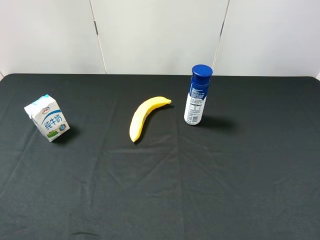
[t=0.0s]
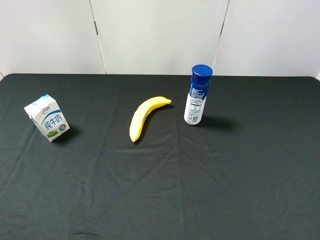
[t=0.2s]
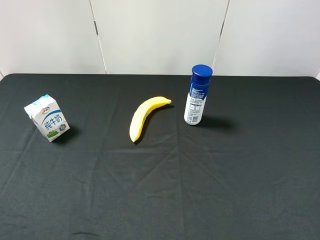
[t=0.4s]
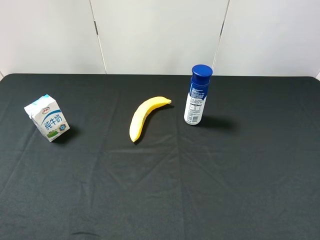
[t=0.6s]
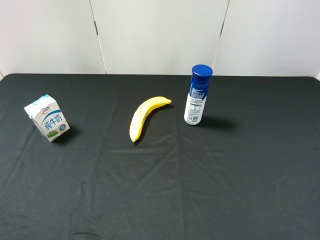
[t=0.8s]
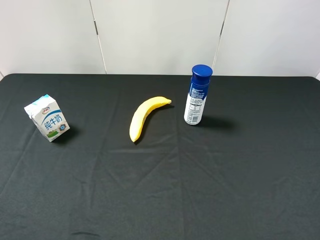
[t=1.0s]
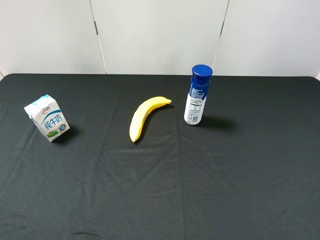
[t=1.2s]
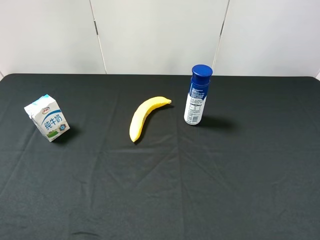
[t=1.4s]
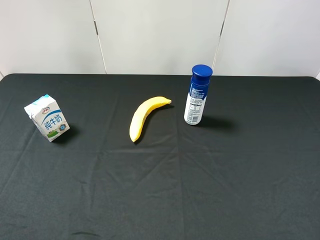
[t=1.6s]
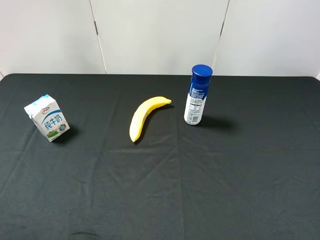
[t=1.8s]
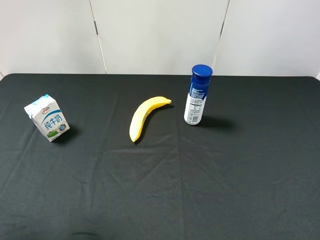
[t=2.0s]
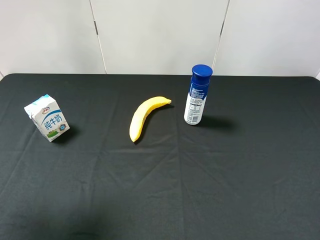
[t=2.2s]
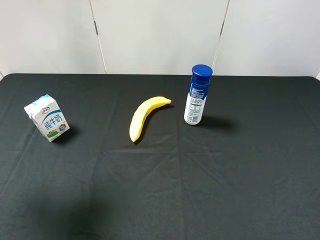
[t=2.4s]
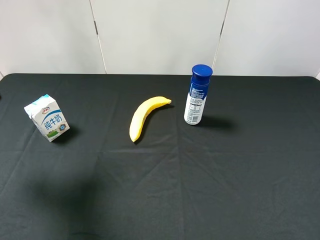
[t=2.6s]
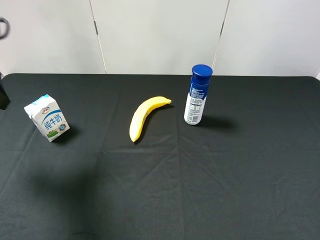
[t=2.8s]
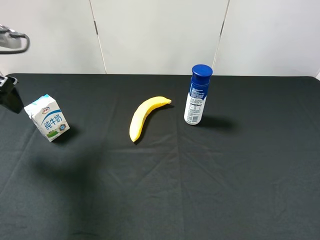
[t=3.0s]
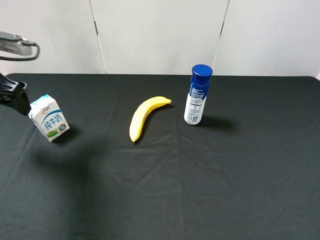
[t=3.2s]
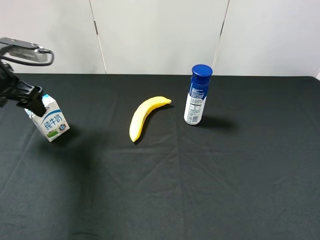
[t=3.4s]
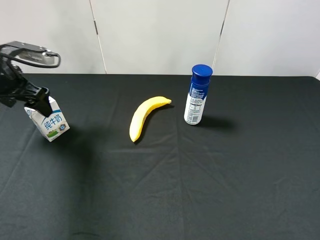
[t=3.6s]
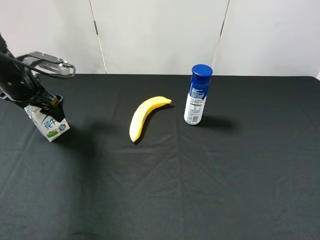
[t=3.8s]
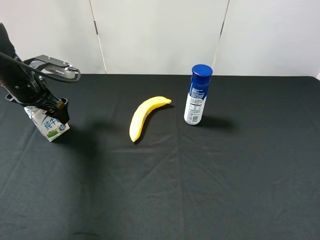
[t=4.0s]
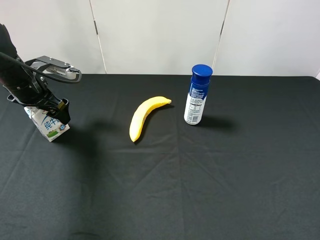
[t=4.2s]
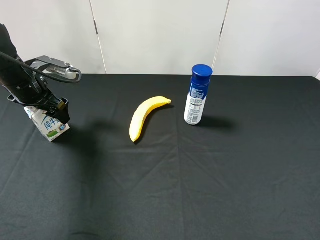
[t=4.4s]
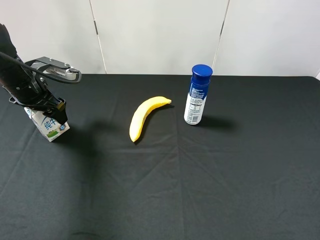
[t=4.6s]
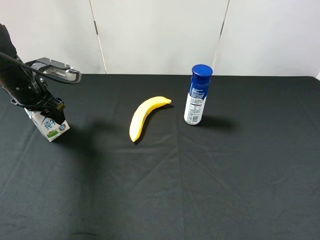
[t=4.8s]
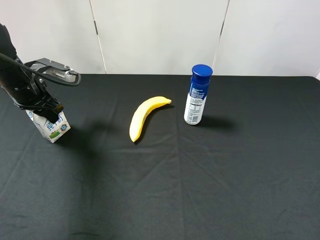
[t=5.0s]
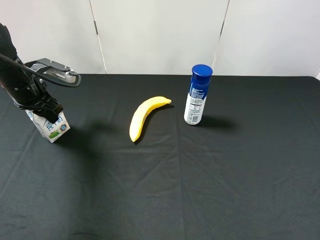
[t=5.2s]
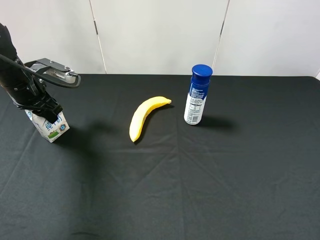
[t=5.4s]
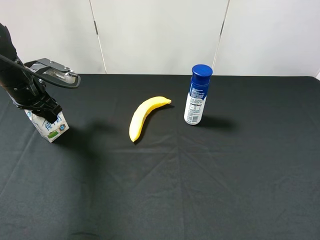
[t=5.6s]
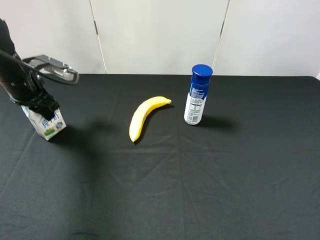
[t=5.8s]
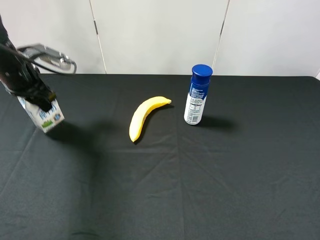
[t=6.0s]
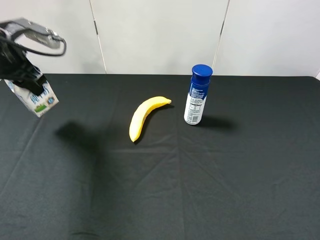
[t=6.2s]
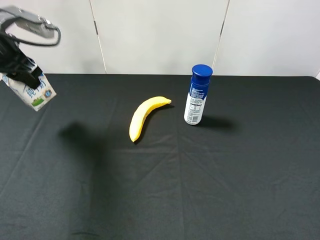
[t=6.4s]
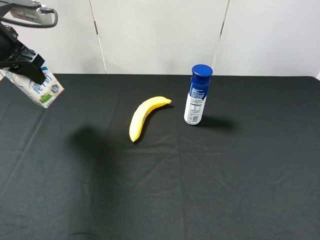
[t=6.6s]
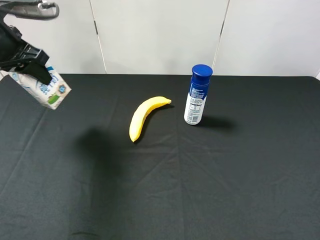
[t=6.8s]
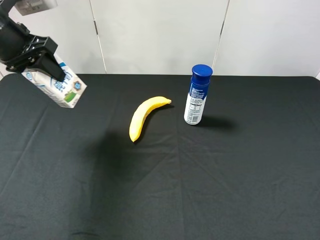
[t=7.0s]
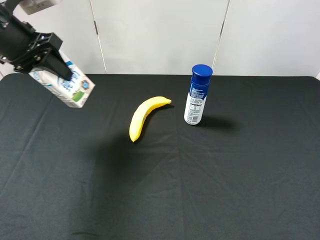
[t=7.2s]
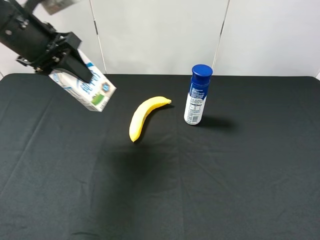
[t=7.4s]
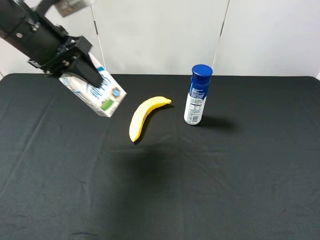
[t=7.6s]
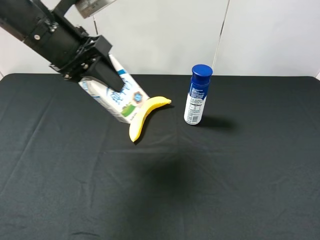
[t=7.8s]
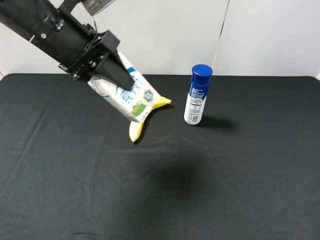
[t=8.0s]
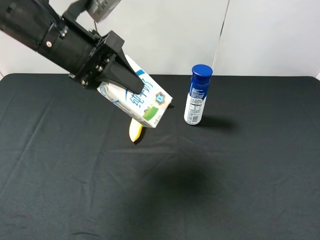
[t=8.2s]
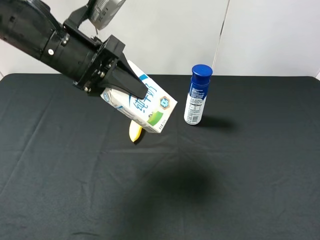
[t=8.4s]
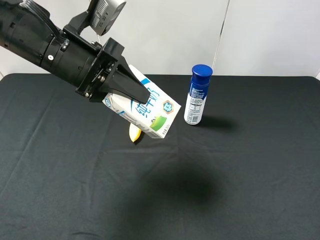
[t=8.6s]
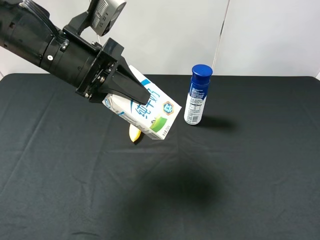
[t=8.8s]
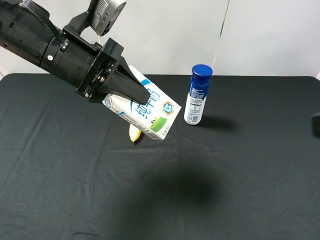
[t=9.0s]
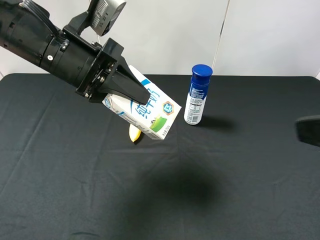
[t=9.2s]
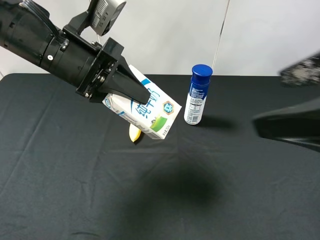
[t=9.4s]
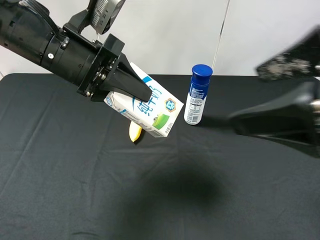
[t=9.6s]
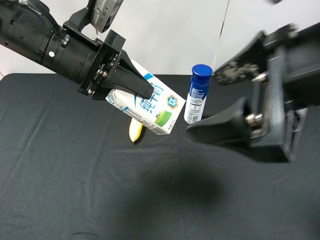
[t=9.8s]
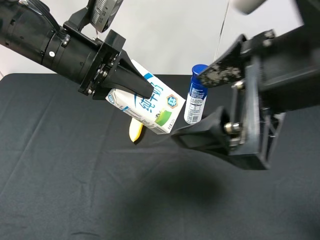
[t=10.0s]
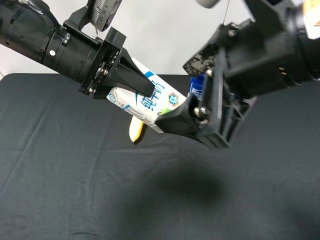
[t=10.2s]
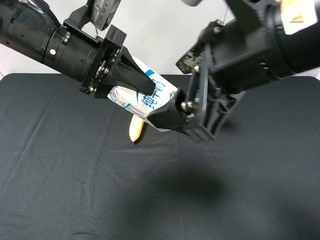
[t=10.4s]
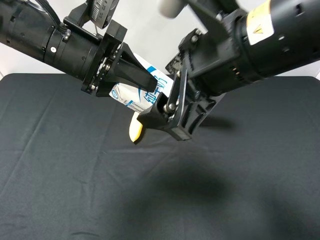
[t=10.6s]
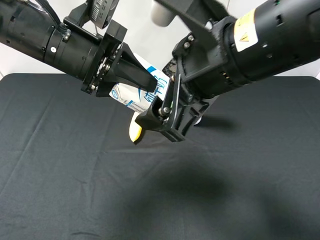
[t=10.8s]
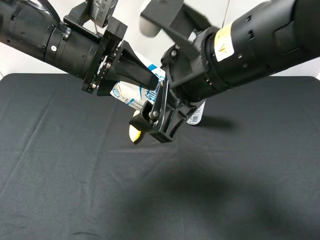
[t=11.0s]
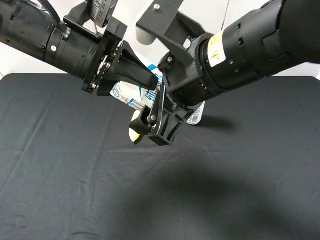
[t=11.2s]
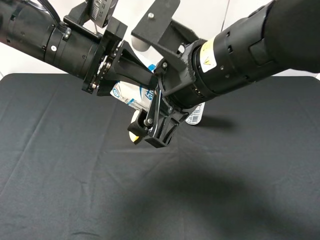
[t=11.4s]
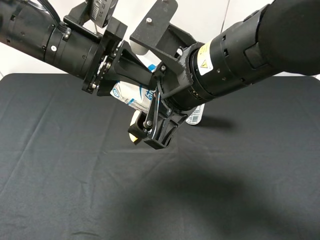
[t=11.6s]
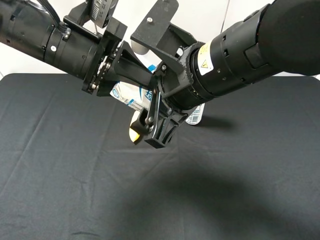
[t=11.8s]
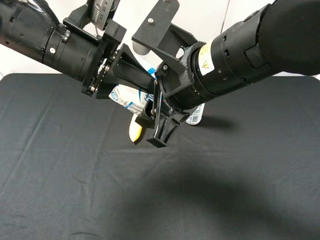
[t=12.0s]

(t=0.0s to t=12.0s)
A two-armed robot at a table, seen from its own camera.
Task of the whole recording: use the left gripper to pick up the item and transfer it from the left gripper to the right gripper.
t=1.6s - t=3.0s: The left gripper heads forward, covering about 25 cm.
t=3.0s - t=4.4s: The left gripper travels downward and forward by approximately 15 cm.
t=4.4s - t=6.0s: The left gripper closes its fingers.
t=6.0s - t=7.6s: The left gripper is displaced to the right, upward and backward by roughly 15 cm.
t=7.6s - t=9.0s: The left gripper ends up approximately 5 cm from where it was; the right gripper heads upward, forward and to the left, covering approximately 10 cm.
t=9.0s - t=10.4s: The right gripper is displaced to the left and forward by roughly 20 cm.
t=10.4s - t=12.0s: The right gripper heads downward, covering some 5 cm, and closes.

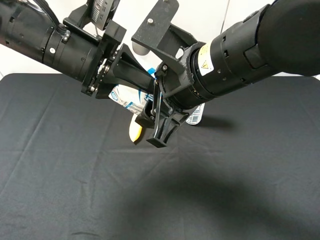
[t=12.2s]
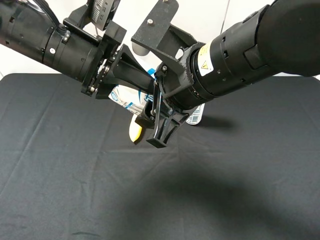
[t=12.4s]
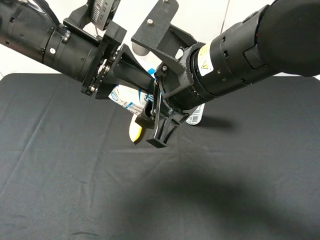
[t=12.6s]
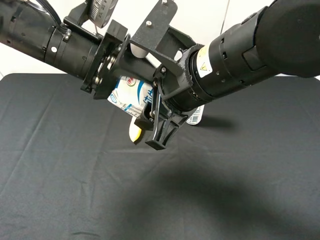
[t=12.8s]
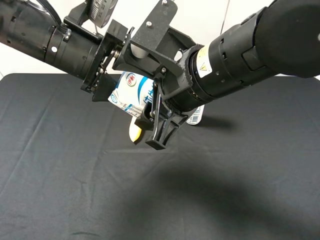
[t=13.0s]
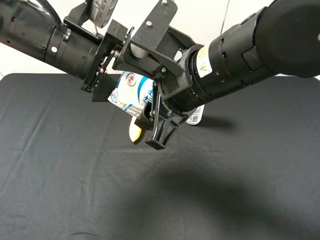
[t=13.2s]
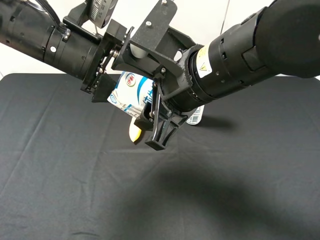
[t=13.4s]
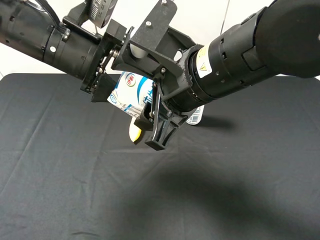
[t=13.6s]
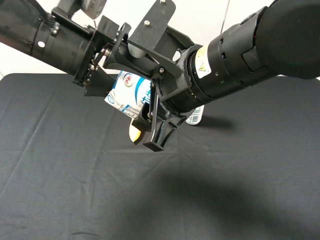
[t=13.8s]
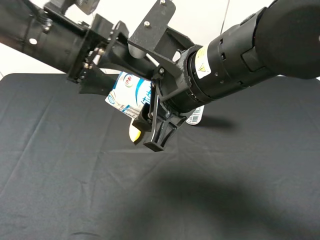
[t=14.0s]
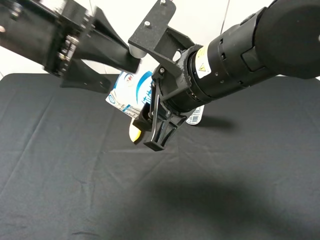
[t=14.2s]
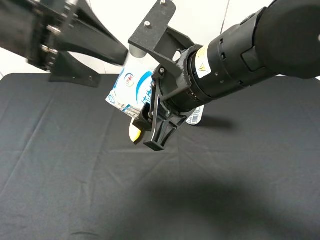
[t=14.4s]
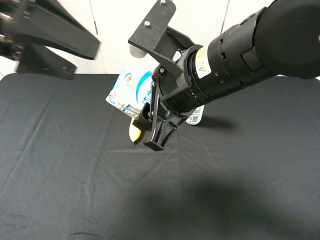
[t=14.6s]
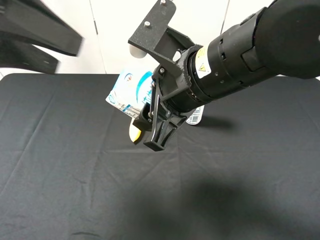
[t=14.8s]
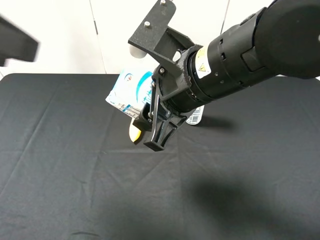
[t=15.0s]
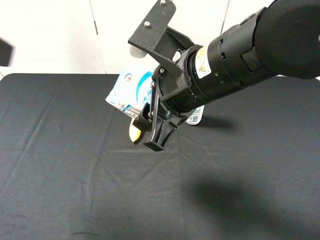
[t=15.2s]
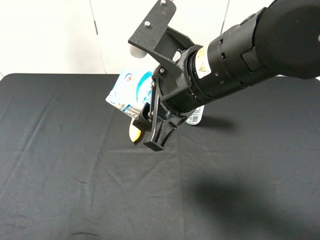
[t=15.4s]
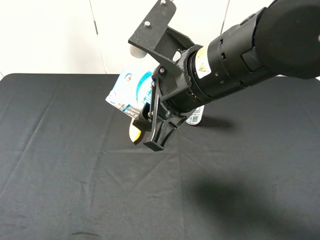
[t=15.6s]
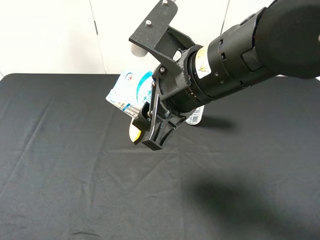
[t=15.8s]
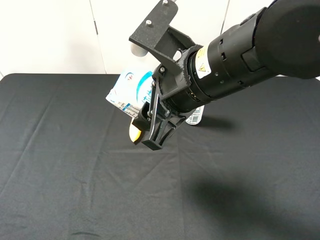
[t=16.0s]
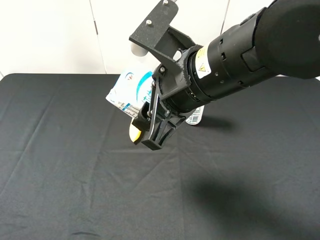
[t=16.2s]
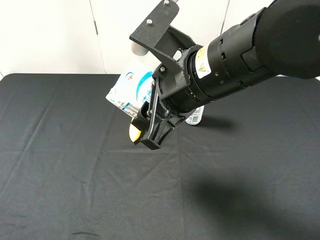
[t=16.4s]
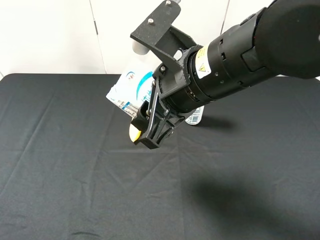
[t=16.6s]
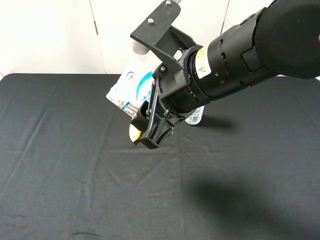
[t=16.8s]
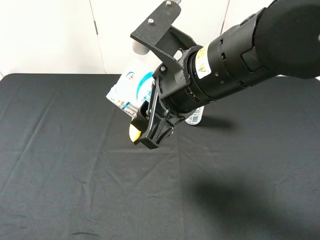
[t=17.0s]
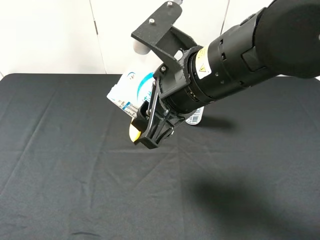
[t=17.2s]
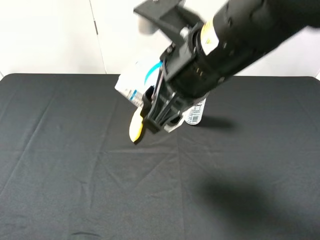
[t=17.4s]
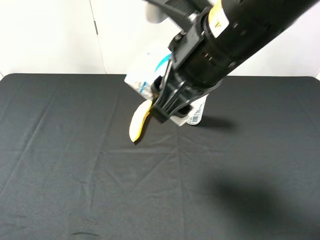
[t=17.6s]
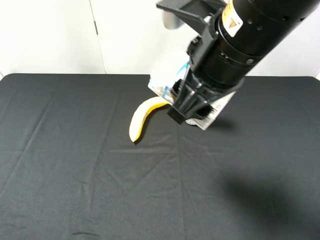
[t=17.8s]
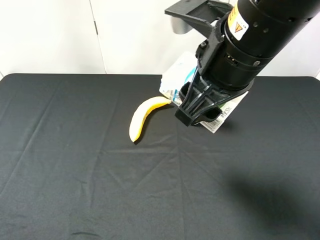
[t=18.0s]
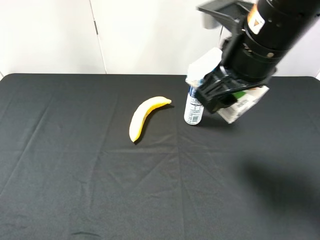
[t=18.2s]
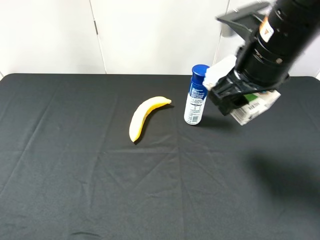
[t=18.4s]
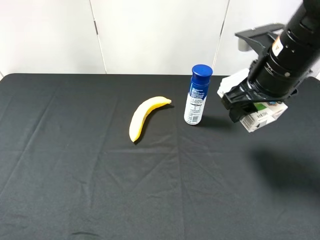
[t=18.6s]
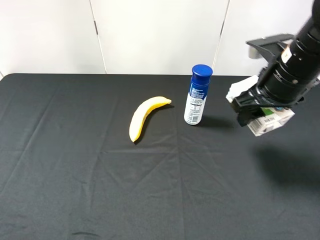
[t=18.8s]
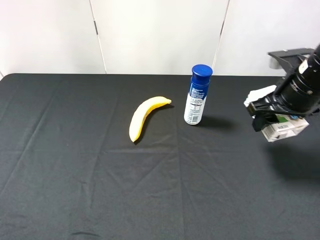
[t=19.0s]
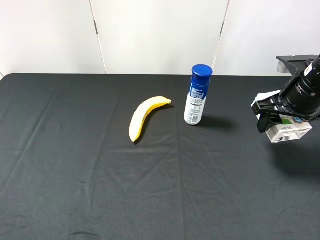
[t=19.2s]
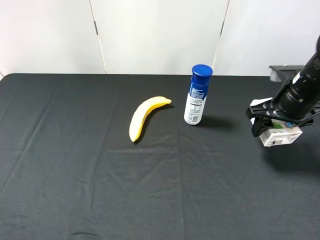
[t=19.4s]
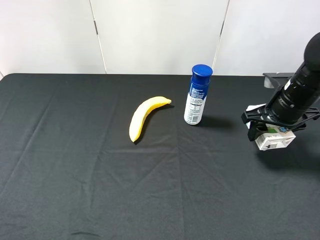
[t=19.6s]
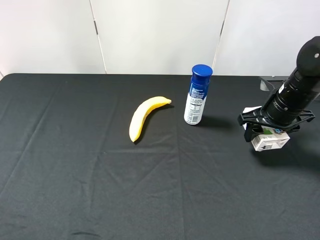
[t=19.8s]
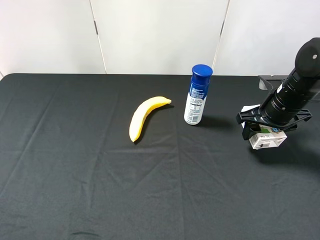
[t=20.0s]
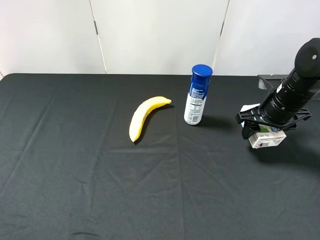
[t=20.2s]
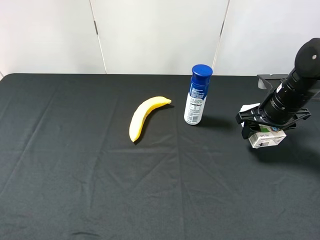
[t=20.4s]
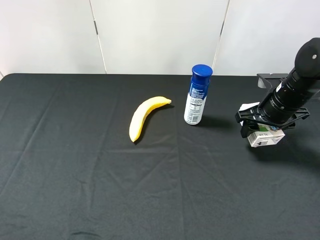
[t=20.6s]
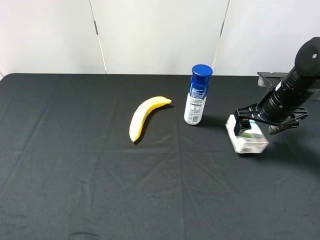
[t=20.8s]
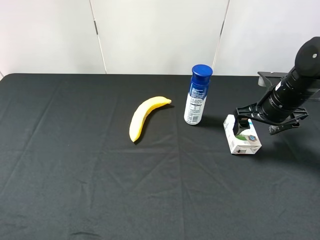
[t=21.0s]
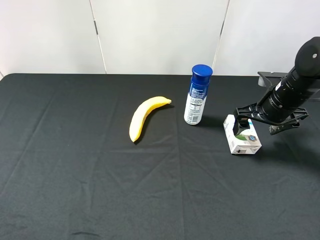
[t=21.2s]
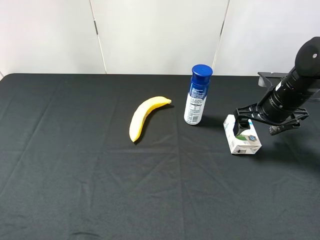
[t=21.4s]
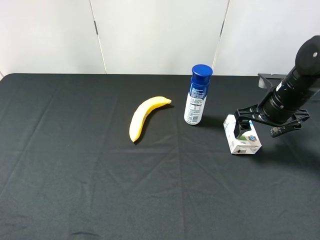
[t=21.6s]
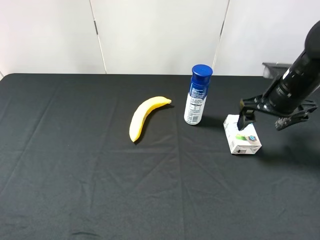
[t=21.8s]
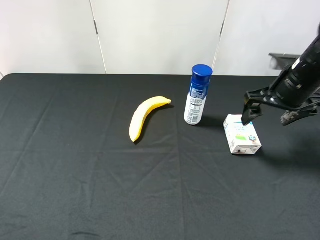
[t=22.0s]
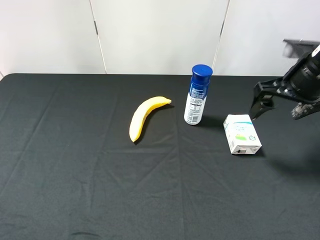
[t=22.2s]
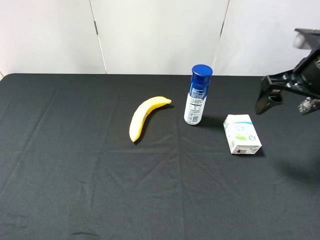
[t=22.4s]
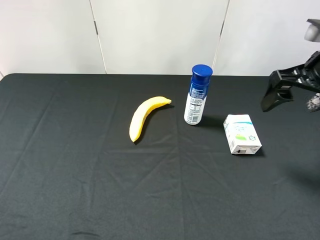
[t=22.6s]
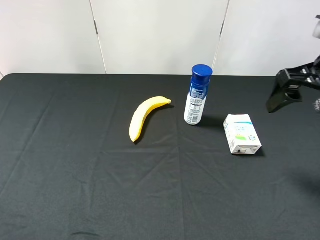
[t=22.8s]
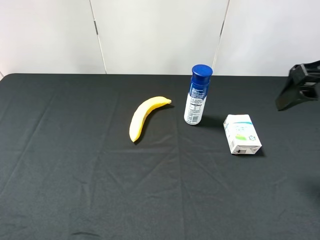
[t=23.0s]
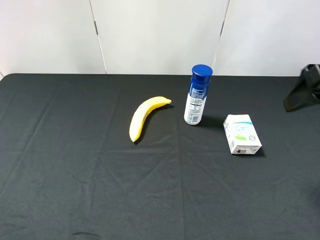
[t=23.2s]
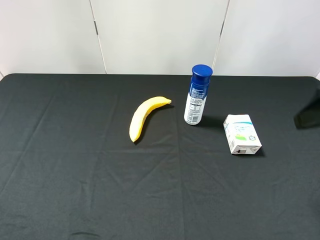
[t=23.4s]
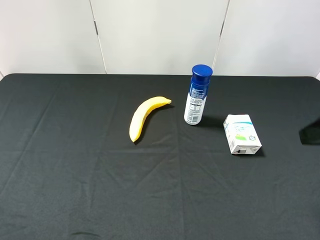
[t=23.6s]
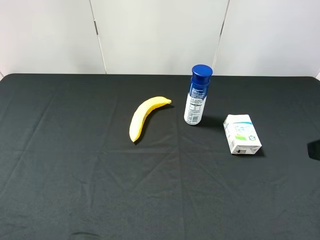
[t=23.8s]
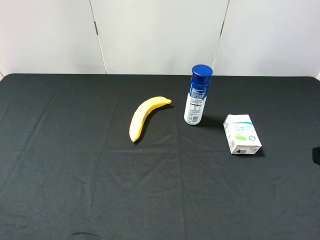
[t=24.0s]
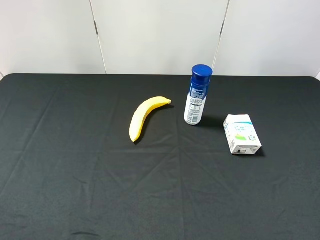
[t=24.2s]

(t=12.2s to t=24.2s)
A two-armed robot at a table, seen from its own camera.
Task of the whole recording: use the left gripper to pick up the item and transfer it from the left gripper to the right gripper.
t=12.2s - t=13.8s: The left gripper opens.
t=13.8s - t=15.2s: The left gripper moves to the left, backward and upward, roughly 20 cm.
t=15.2s - t=16.6s: The left gripper goes about 15 cm backward and downward.
t=16.6s - t=18.2s: The right gripper heads to the right, covering approximately 5 cm.
t=18.2s - t=19.8s: The right gripper shifts approximately 20 cm downward, to the right and forward.
t=19.8s - t=21.2s: The right gripper opens up.
t=21.2s - t=22.6s: The right gripper shifts approximately 15 cm upward and backward.
t=22.6s - t=24.2s: The right gripper is displaced backward by about 20 cm.
